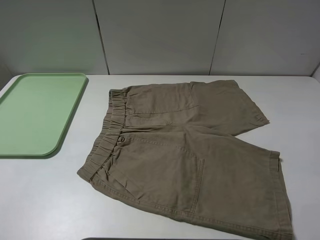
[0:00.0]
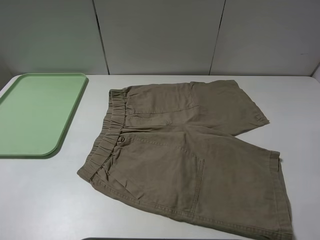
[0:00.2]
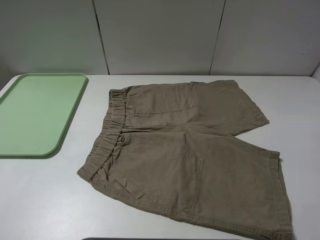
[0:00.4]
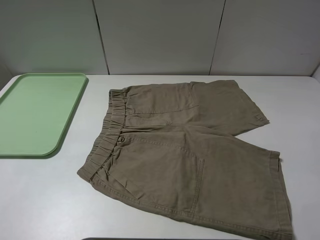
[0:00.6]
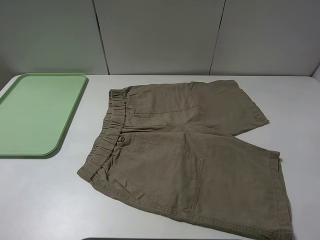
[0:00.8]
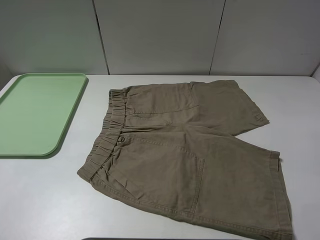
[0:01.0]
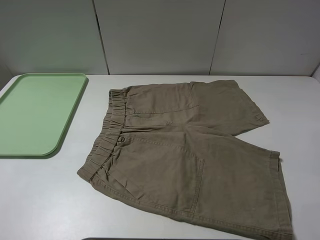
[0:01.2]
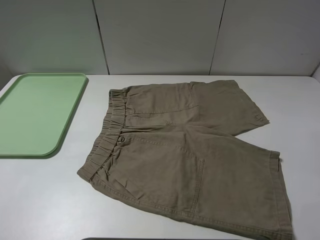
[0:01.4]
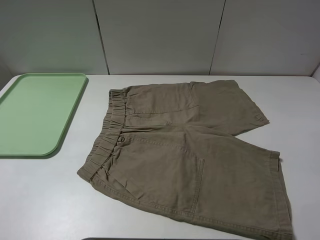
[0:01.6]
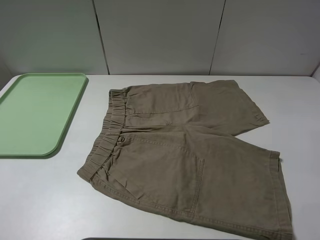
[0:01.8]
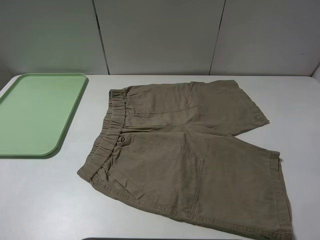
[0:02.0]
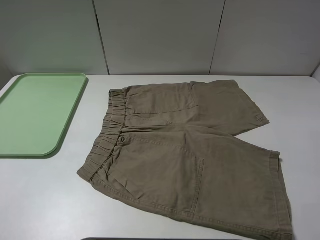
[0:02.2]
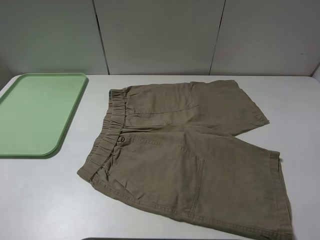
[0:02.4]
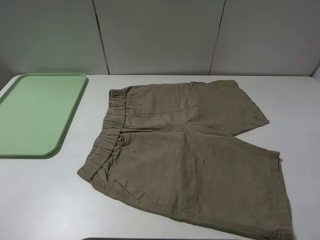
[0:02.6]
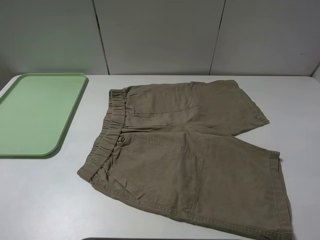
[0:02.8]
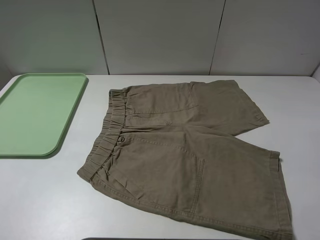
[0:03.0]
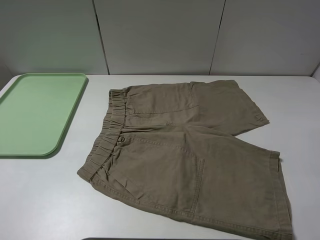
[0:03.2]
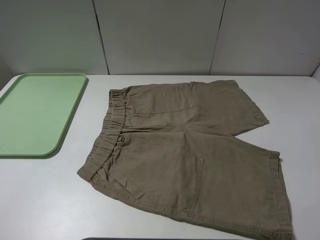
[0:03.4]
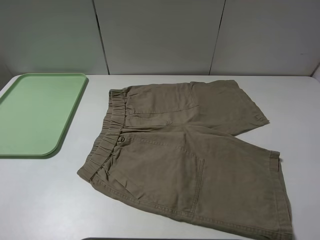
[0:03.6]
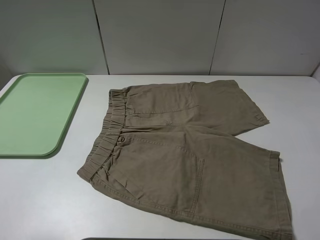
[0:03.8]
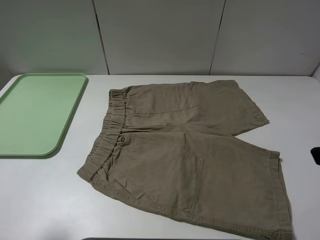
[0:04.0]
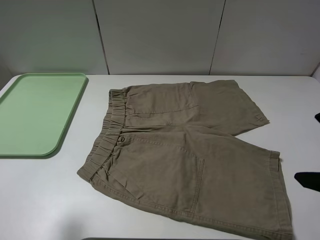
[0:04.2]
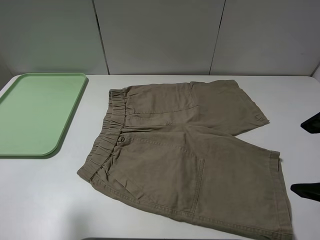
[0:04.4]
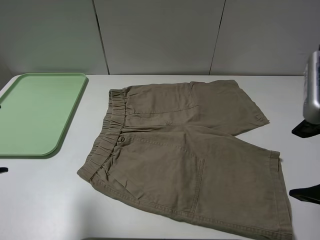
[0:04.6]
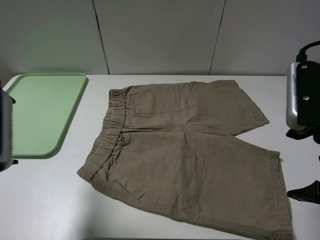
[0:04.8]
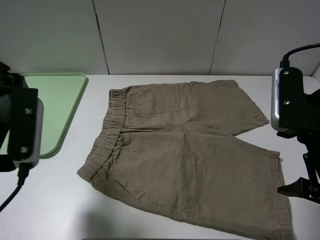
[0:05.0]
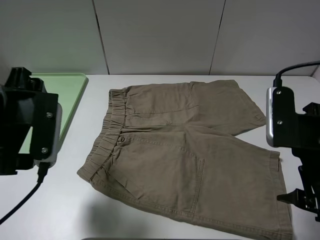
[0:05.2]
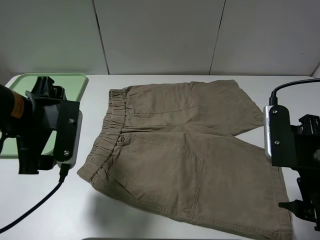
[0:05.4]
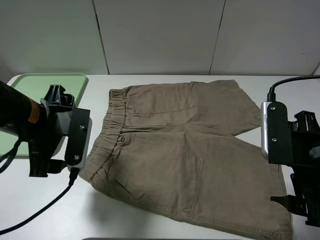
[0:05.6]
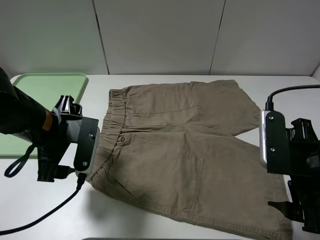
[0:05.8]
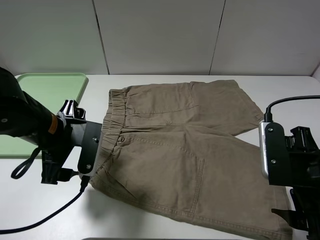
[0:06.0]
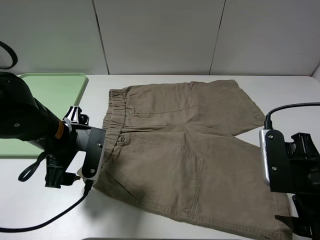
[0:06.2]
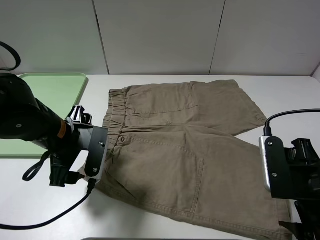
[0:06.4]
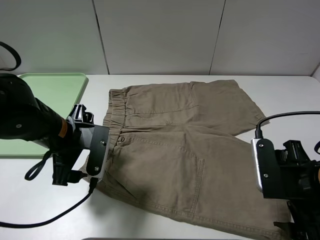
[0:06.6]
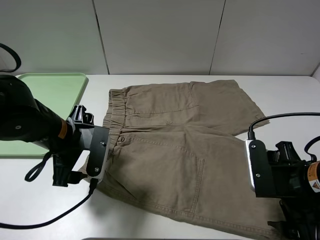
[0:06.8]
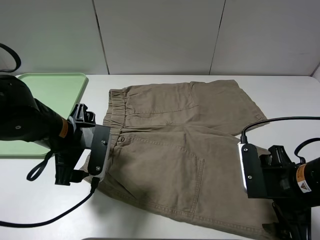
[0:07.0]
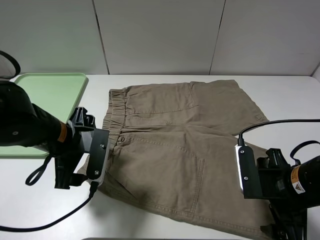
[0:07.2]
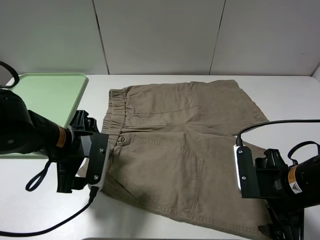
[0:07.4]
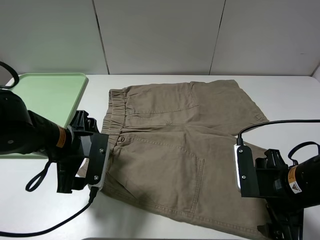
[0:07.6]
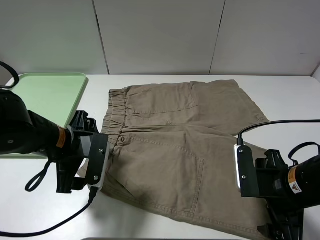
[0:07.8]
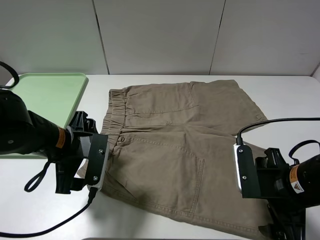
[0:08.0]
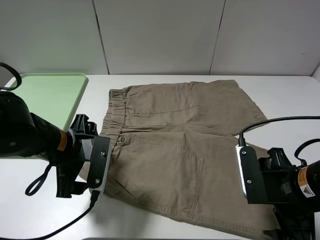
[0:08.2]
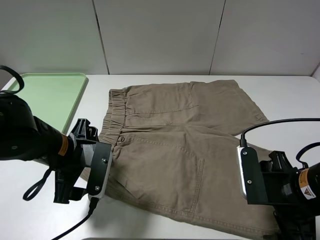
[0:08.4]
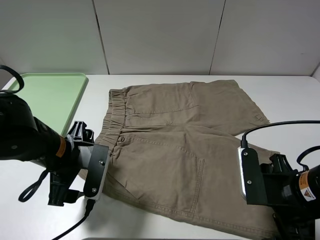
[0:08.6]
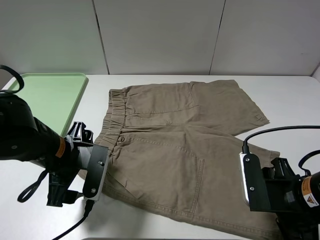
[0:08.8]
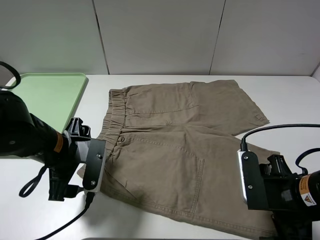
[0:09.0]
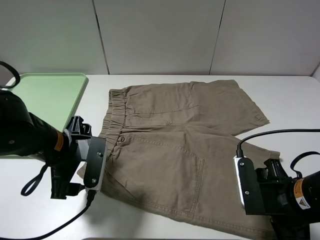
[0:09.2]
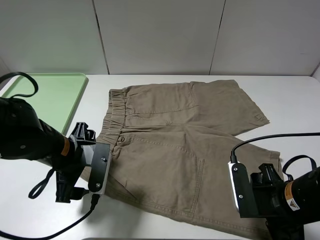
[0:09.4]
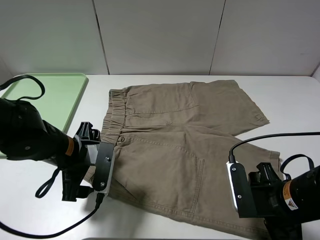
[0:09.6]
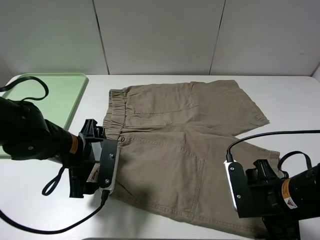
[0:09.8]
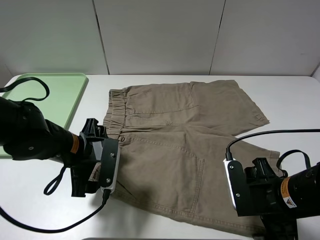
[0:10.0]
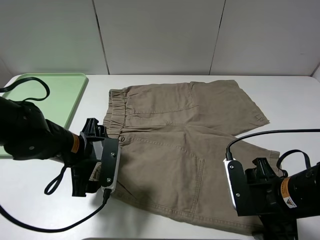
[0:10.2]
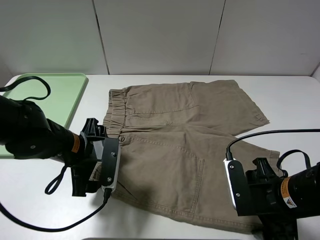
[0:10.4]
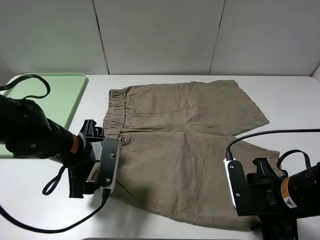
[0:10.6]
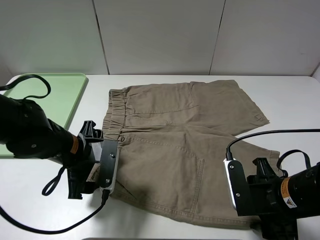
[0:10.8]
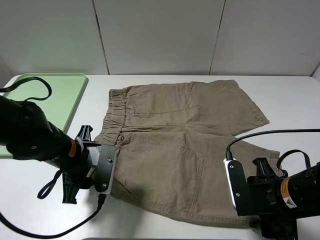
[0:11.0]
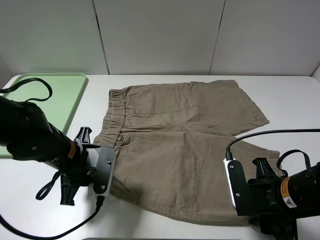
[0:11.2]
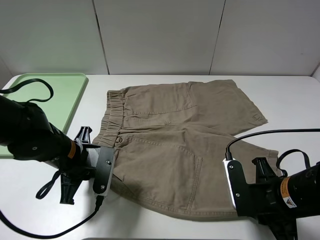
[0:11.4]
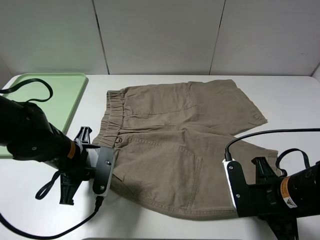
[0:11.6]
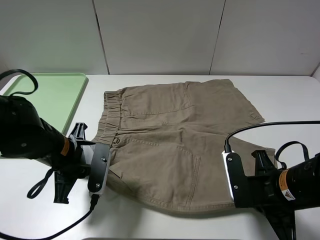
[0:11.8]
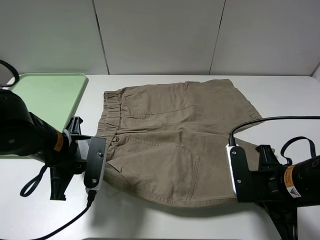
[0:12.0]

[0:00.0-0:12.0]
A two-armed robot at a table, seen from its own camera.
Task of the whole recording: fold the khaki jeans in half with two grippers, then fold them in half again, and use the left claw to place the folded fold khaki jeans on the tray.
Step, 0:00.0 to 0:11.6: Grasp the khaki trousers with the left gripper.
0:00.0 to 0:01.6: Both grippers stay about where they are.
0:03.0 to 0:04.4: The left gripper heads forward and to the right, covering approximately 10 cm, while the right gripper travels forward and to the left by some 10 cm.
0:04.4 to 0:06.0: The right gripper moves downward, roughly 10 cm. Meanwhile the left gripper shifts approximately 20 cm downward, forward and to the right.
0:06.0 to 0:07.6: The right gripper goes roughly 5 cm downward.
0:07.6 to 0:10.4: The grippers stay close to where they were, moving slightly.
0:10.4 to 0:12.0: The right gripper closes its fingers. Meanwhile the left gripper closes up.

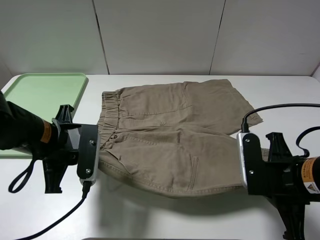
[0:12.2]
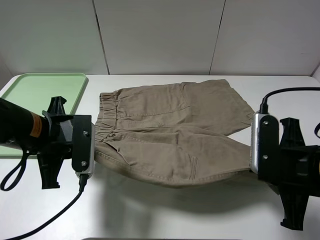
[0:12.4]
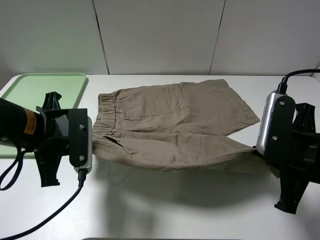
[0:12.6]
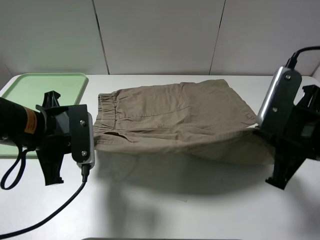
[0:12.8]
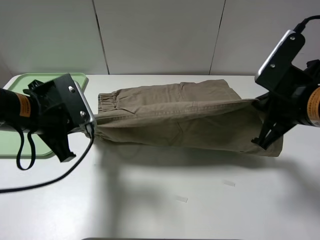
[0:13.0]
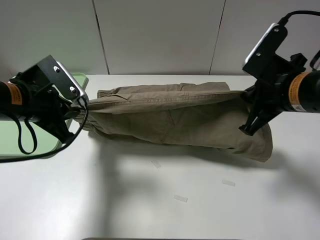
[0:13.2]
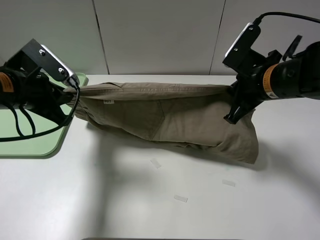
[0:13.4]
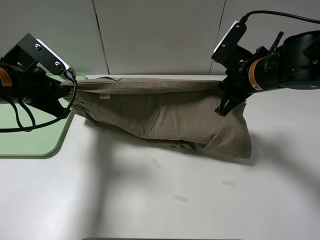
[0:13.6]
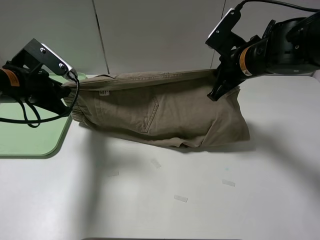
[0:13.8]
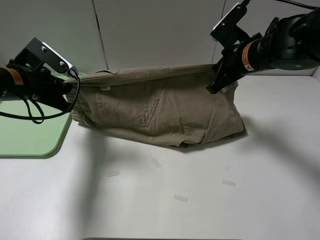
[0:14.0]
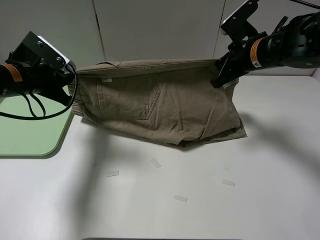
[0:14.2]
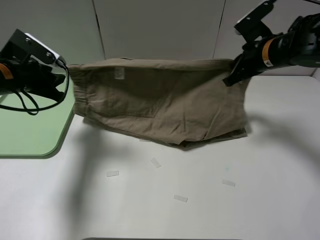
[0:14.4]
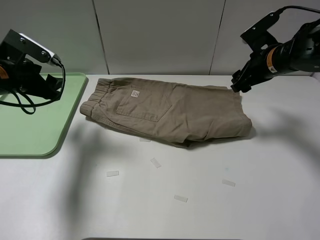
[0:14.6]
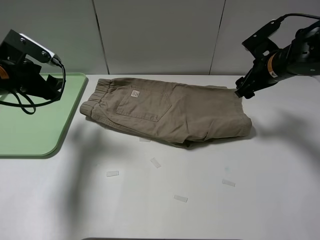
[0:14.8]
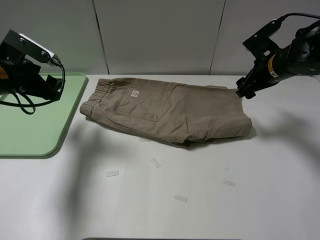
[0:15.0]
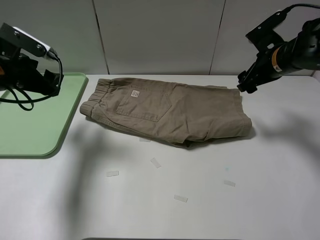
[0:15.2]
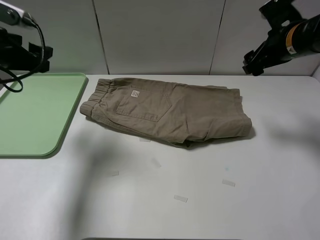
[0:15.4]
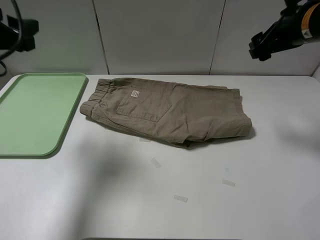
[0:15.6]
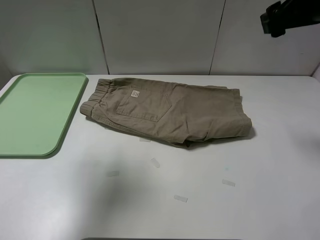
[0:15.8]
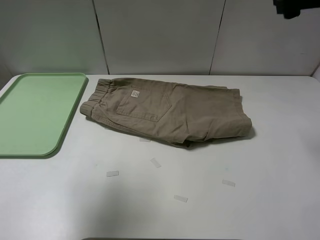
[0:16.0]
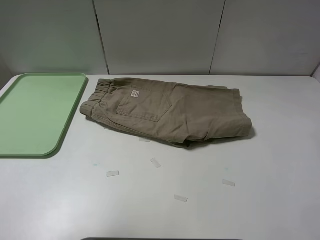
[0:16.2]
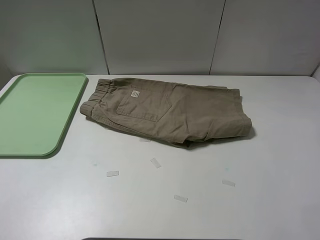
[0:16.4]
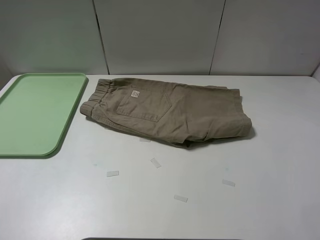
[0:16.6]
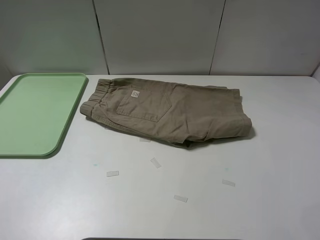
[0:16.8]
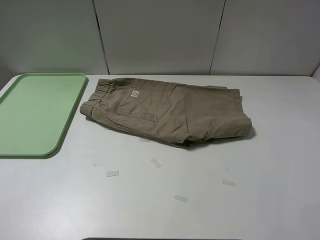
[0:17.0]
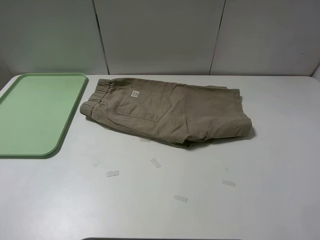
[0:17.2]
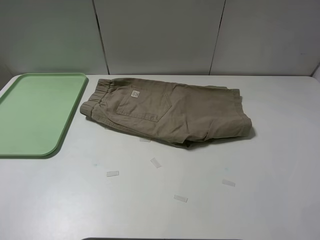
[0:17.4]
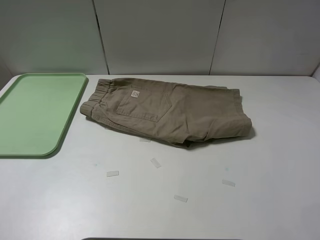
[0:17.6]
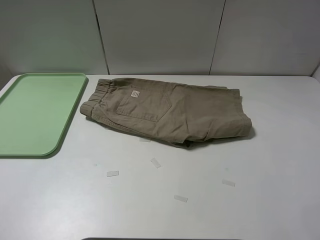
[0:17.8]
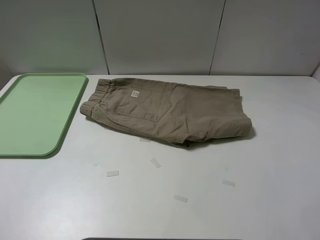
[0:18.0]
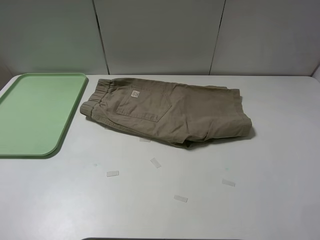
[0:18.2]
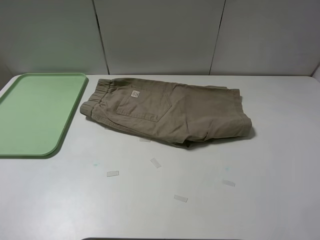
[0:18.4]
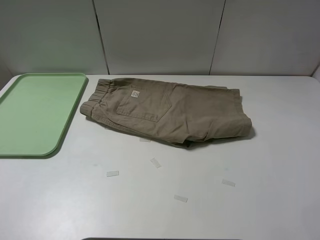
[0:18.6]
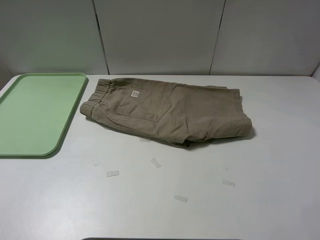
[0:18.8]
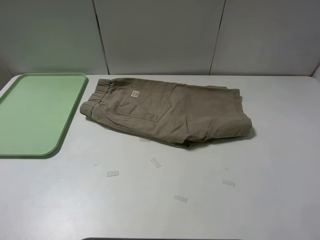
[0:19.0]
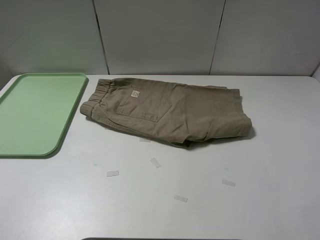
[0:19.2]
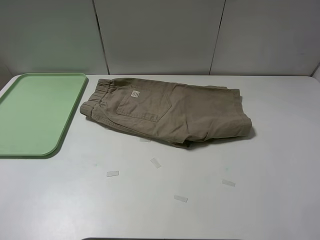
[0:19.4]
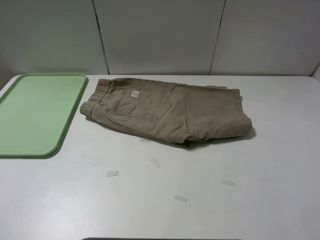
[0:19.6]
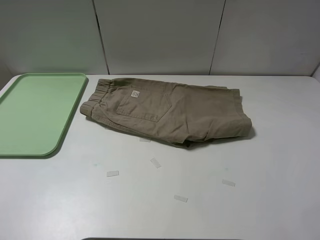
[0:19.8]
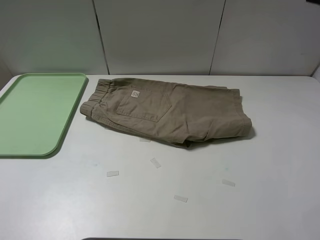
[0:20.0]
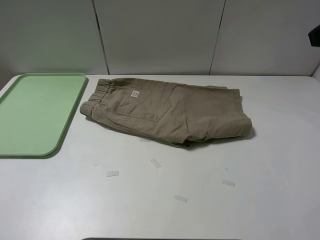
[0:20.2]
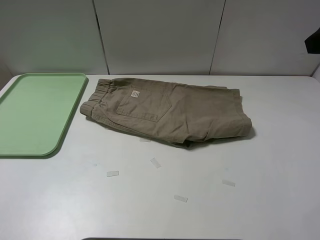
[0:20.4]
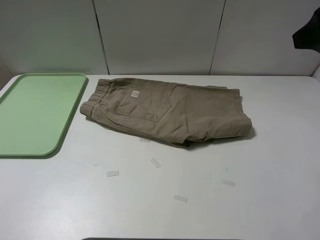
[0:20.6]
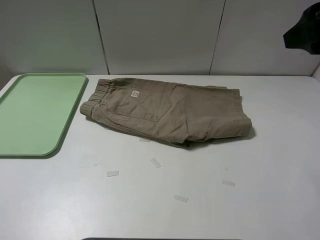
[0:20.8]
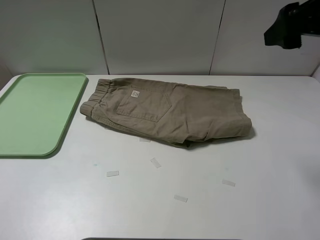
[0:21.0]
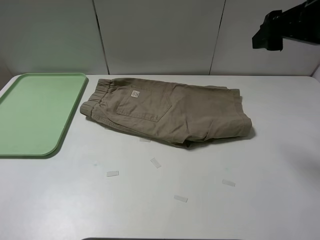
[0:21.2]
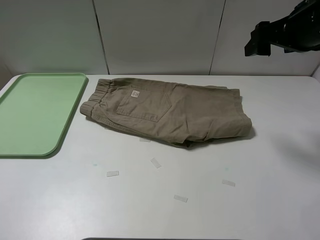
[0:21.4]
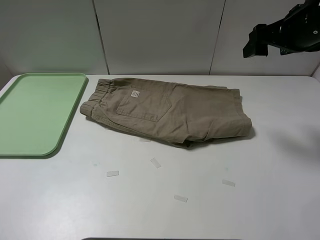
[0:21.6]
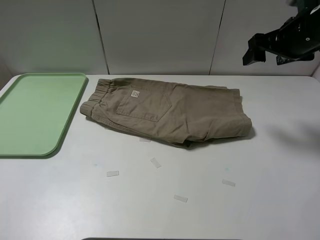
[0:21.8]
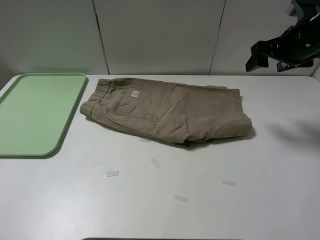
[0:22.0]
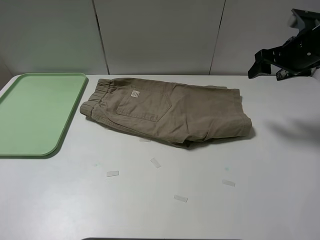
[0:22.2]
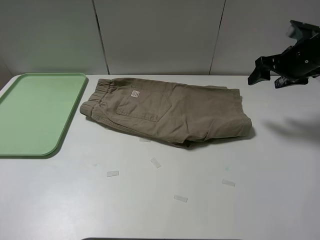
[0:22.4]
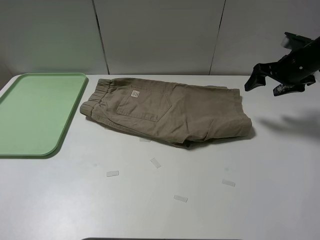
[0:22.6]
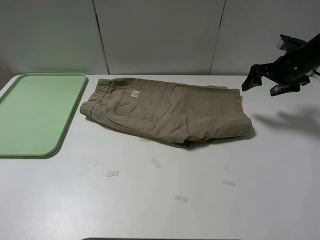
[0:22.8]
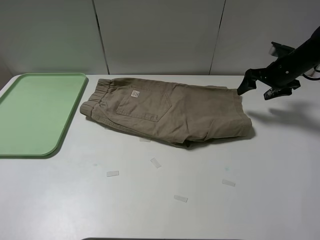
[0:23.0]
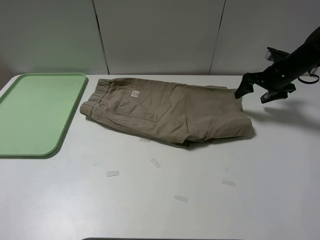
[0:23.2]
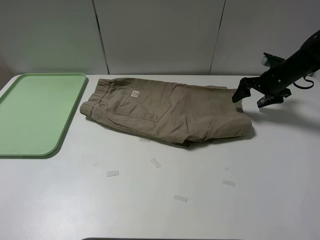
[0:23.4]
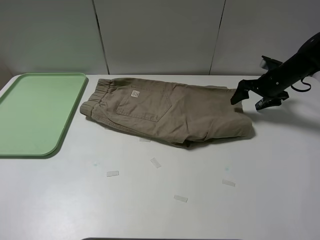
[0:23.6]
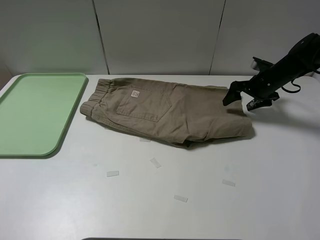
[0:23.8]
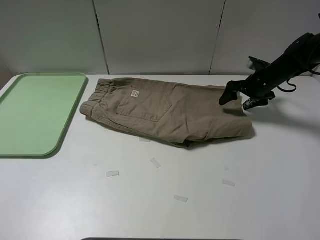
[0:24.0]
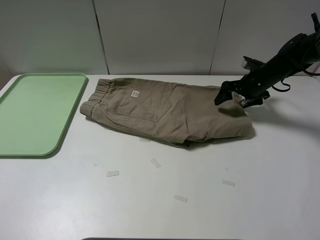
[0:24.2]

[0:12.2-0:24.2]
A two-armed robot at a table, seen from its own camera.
Task of the whole recording: fold the khaki jeans in half with two grippers, then fold them in half again, and use the left claw to place the folded fold khaki jeans on the tray.
Step, 0:12.2 to 0:14.4: Fold the khaki trousers upwards with the left gripper.
0:12.2 to 0:13.8: The right gripper shifts approximately 20 cm forward; the left gripper heads forward and to the left, covering approximately 10 cm.
0:13.8 to 0:15.2: The left gripper opens up; the right gripper goes about 5 cm to the right, and opens up.
0:15.2 to 0:16.6: The right gripper is displaced upward and backward by approximately 25 cm; the left gripper moves backward and upward, about 35 cm.
0:19.8 to 0:21.2: The right gripper moves downward, roughly 5 cm.
0:21.2 to 0:22.6: The right gripper moves downward, forward and to the right, roughly 20 cm.
0:22.6 to 0:24.2: The right gripper is displaced downward and forward by approximately 10 cm.
